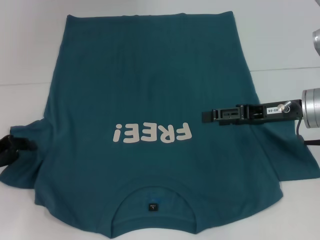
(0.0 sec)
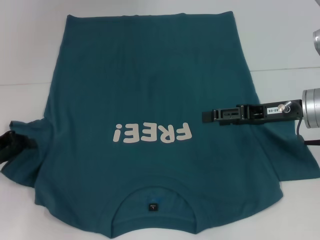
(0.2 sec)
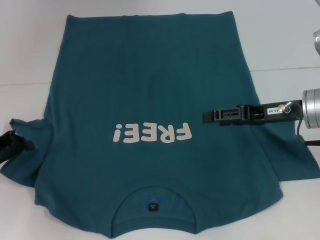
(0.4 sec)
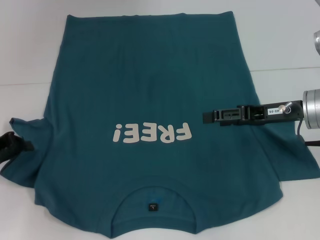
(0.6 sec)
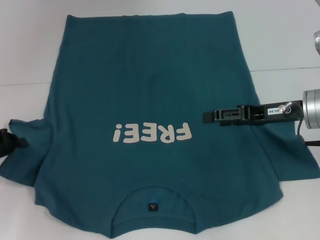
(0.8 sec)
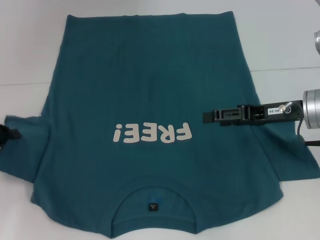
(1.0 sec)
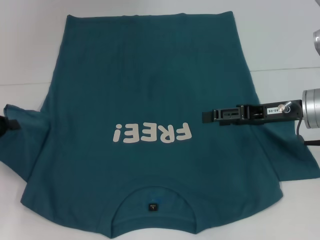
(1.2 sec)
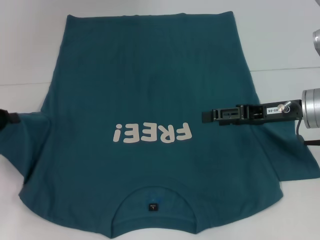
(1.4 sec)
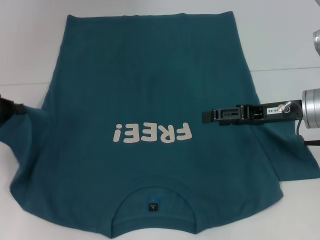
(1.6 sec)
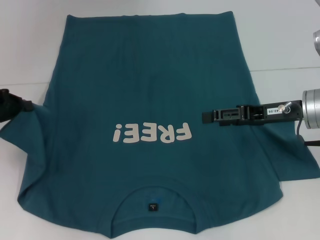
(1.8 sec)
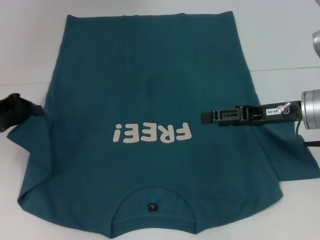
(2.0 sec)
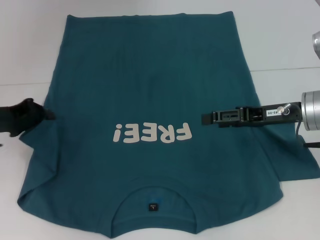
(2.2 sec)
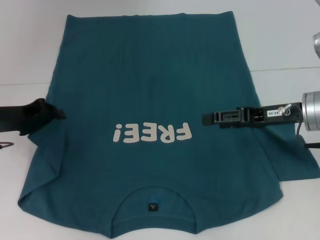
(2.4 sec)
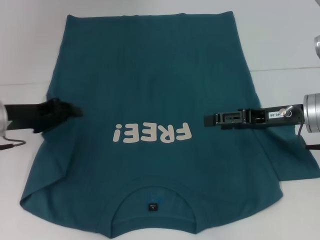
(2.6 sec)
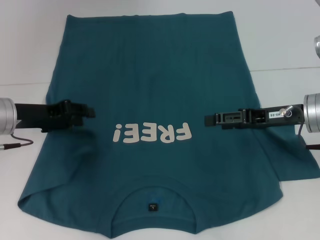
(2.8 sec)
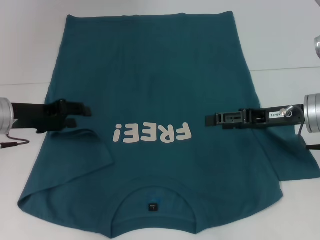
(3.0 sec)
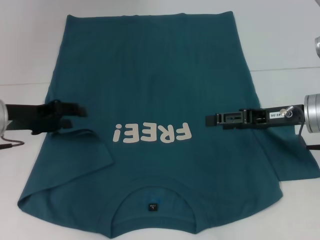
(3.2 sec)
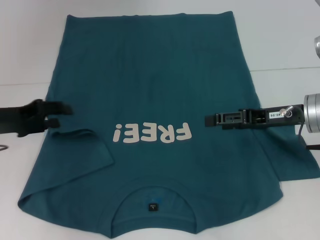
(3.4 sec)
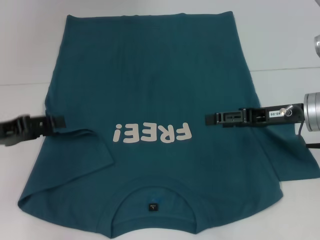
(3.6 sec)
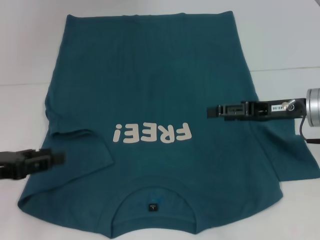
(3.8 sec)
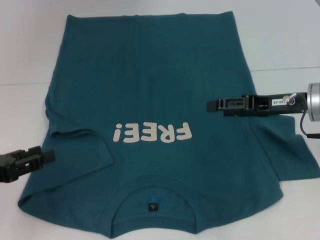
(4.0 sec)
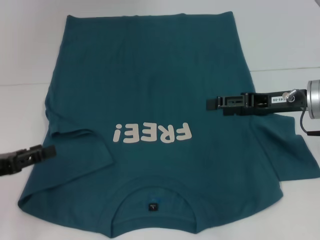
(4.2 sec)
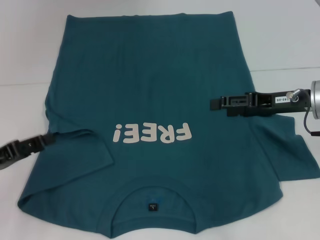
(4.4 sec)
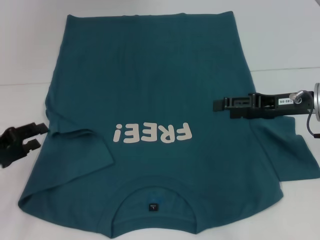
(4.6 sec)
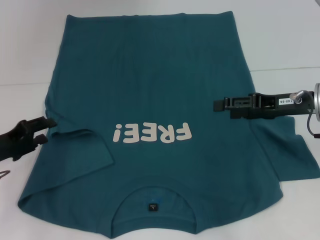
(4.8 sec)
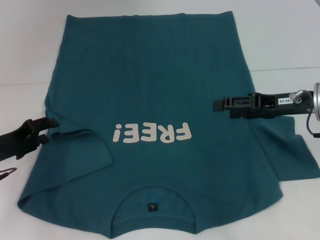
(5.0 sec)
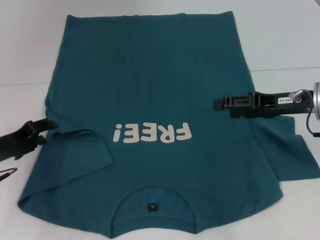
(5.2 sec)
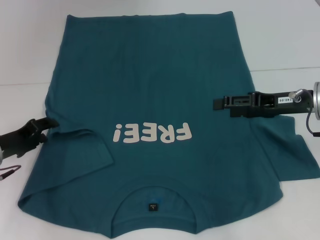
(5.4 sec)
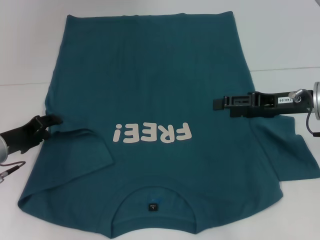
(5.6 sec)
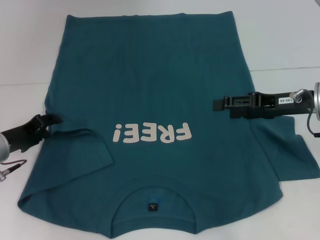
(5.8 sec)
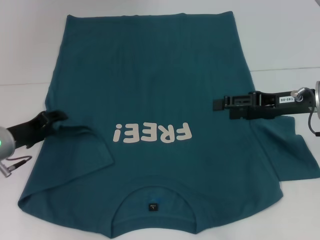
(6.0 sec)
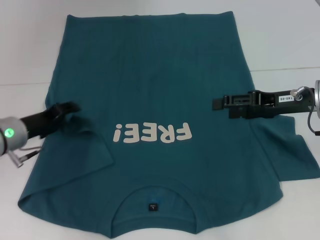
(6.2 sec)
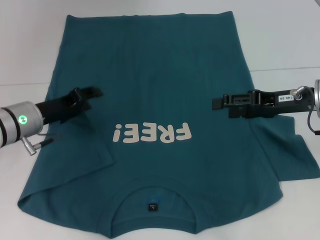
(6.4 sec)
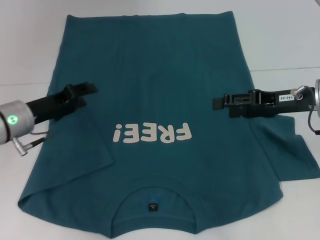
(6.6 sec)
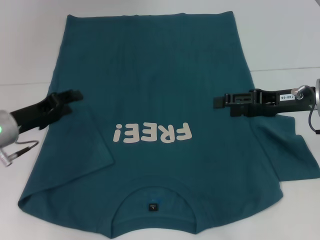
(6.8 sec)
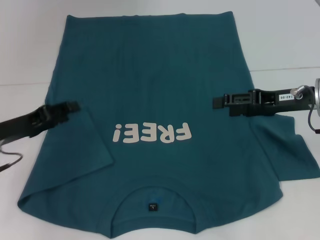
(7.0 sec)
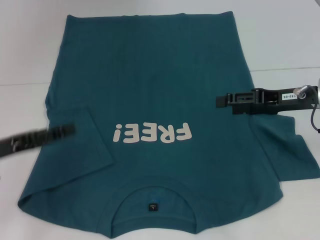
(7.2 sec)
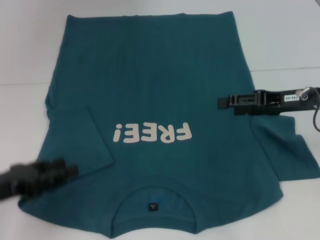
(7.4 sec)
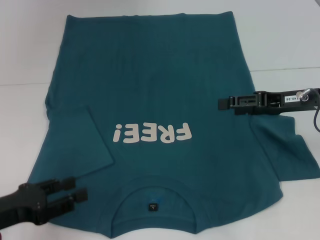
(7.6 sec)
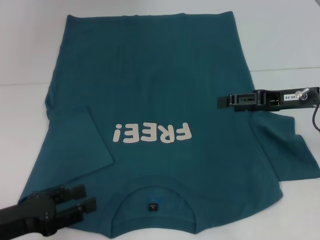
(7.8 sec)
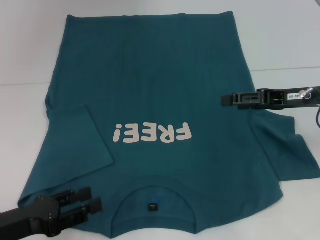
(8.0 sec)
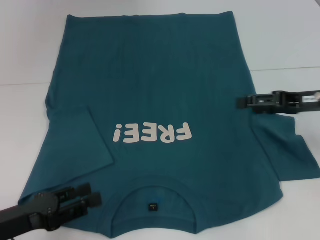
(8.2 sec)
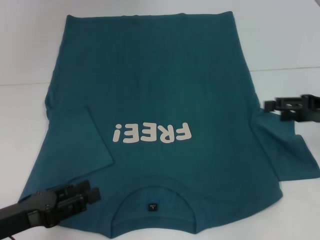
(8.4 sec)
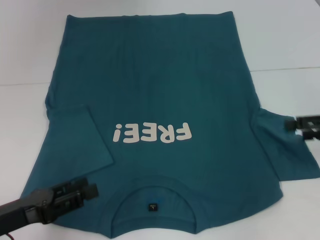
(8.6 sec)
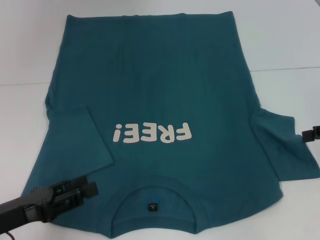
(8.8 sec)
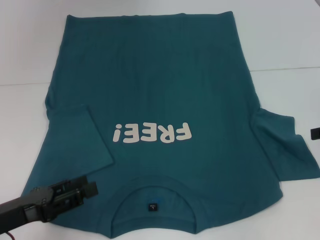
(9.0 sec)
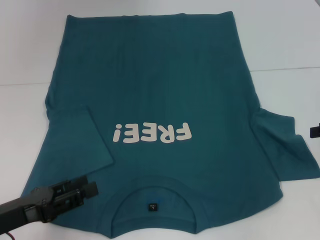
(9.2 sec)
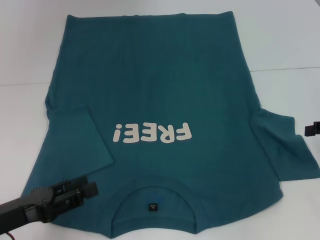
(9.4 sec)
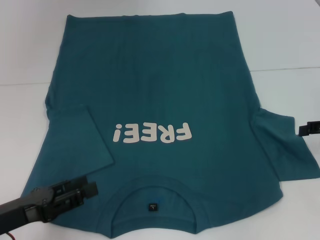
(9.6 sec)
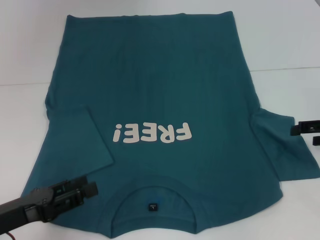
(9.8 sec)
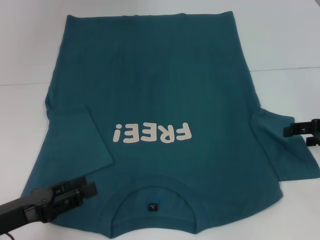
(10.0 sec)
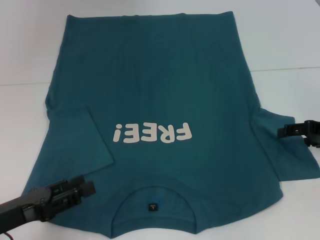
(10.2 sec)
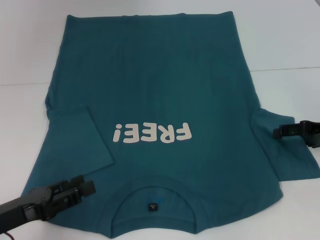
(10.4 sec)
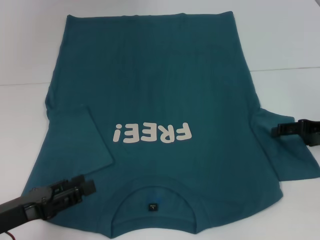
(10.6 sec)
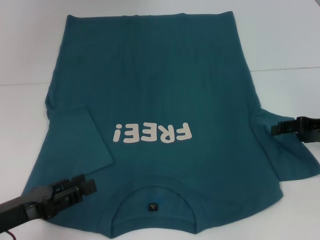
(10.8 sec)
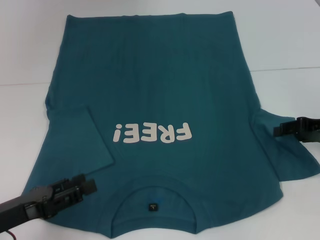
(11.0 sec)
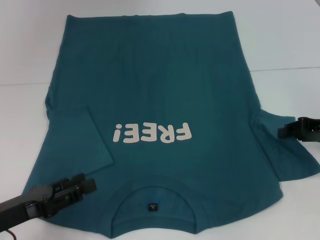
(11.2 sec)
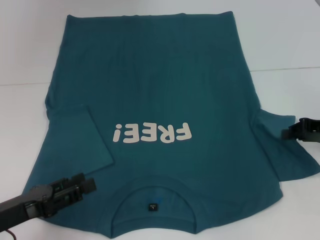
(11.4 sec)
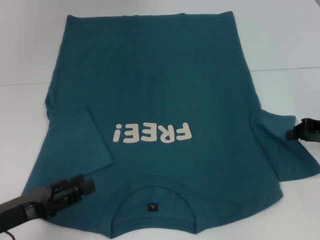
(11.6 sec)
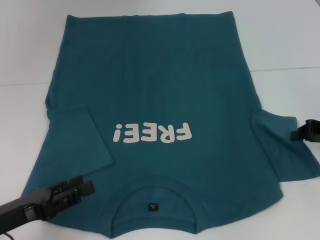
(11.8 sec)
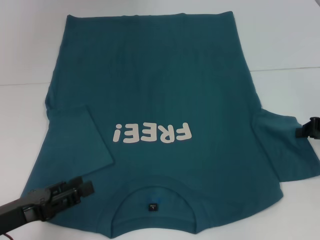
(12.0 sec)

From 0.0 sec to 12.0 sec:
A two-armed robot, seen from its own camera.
Step, from 0.0 sec to 6.8 sec: Fold the bottom left sleeve with your left hand.
From 0.0 sec to 1.6 sec: The left gripper moves upward, about 5 cm, and closes up.
From 1.6 sec to 3.0 sec: The left gripper travels to the right by roughly 10 cm, and opens up.
From 3.0 sec to 4.4 sec: The left gripper goes about 10 cm backward and to the left.
From 4.4 sec to 6.0 sec: The left gripper travels forward and to the right by approximately 10 cm.
From 6.0 sec to 7.6 sec: The left gripper travels backward by roughly 15 cm.
From 7.6 sec to 9.0 sec: The right gripper moves to the right, about 10 cm.
From 9.0 sec to 10.4 sec: The right gripper heads downward, covering approximately 5 cm.
From 10.4 sec to 12.0 sec: The right gripper closes up.

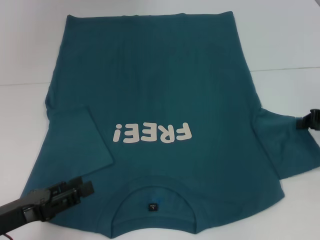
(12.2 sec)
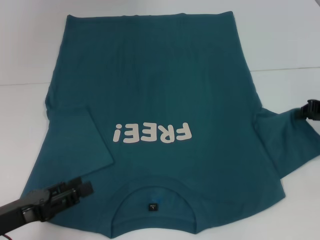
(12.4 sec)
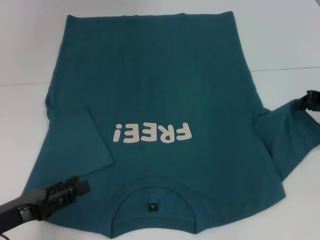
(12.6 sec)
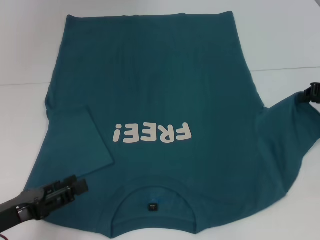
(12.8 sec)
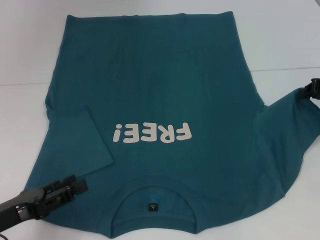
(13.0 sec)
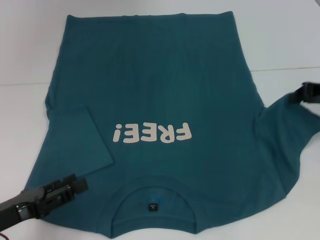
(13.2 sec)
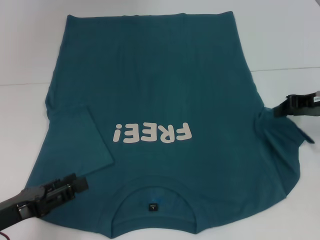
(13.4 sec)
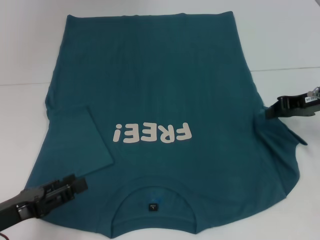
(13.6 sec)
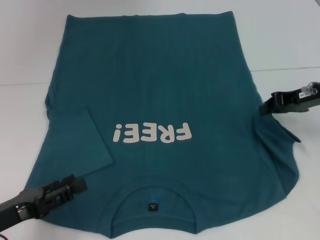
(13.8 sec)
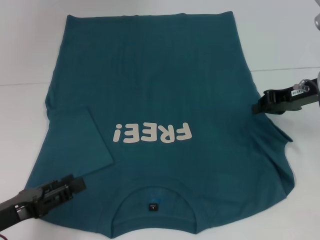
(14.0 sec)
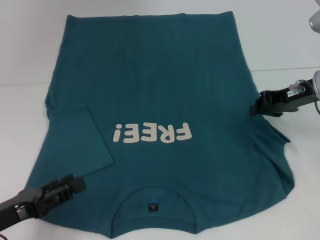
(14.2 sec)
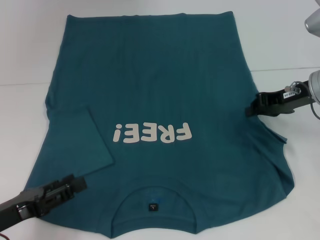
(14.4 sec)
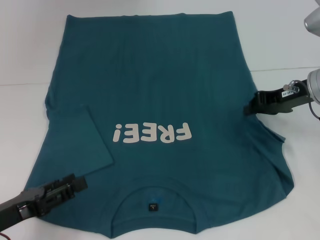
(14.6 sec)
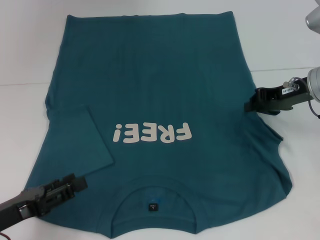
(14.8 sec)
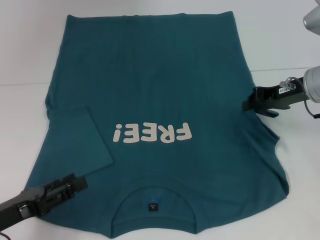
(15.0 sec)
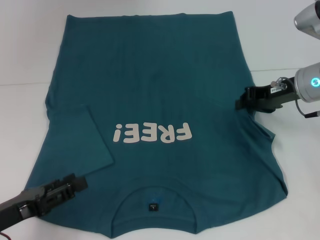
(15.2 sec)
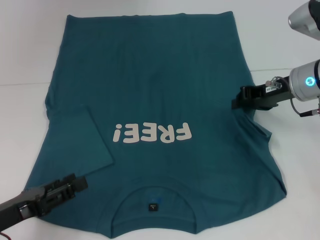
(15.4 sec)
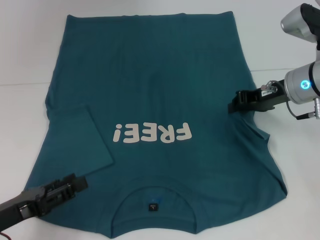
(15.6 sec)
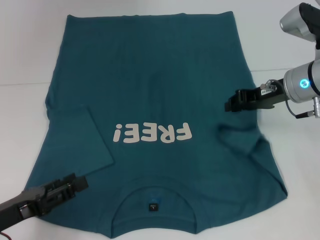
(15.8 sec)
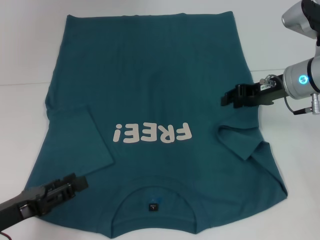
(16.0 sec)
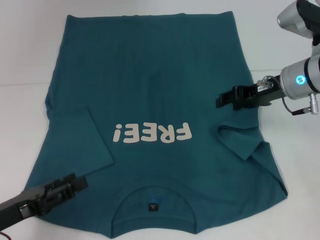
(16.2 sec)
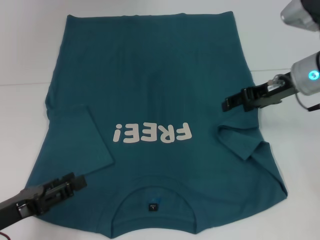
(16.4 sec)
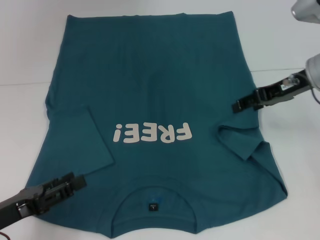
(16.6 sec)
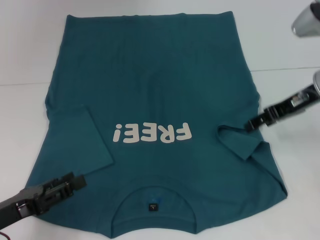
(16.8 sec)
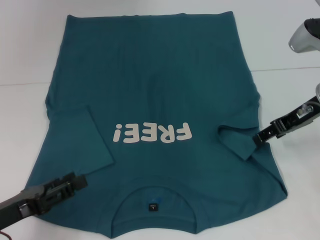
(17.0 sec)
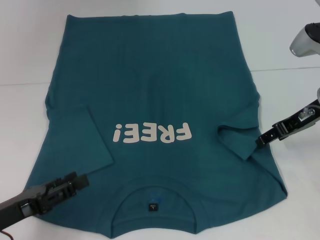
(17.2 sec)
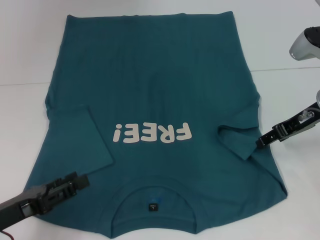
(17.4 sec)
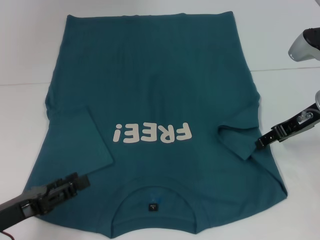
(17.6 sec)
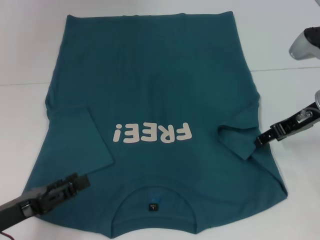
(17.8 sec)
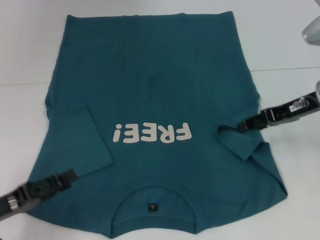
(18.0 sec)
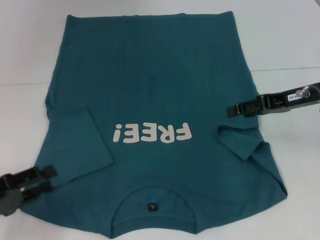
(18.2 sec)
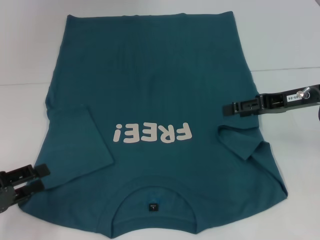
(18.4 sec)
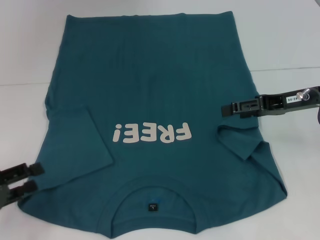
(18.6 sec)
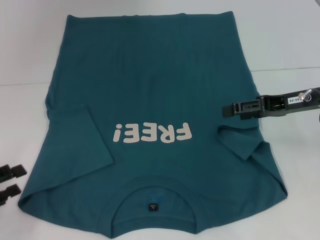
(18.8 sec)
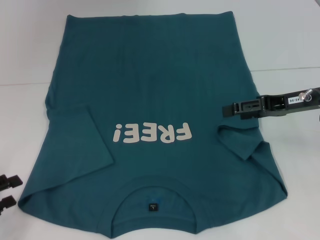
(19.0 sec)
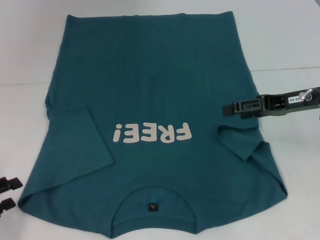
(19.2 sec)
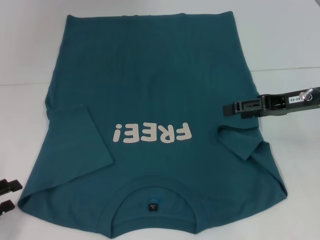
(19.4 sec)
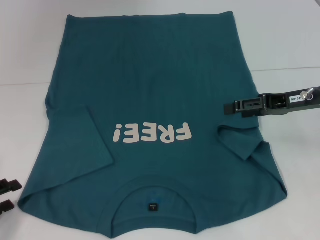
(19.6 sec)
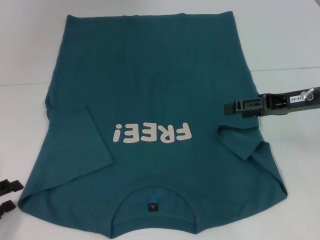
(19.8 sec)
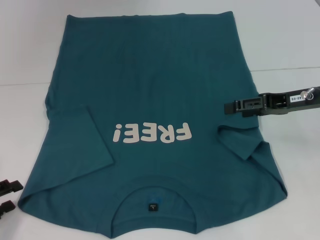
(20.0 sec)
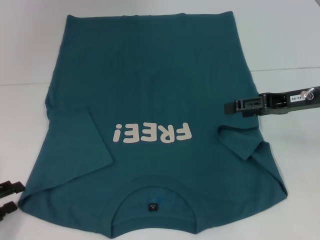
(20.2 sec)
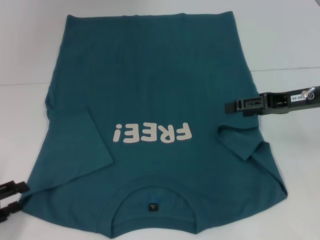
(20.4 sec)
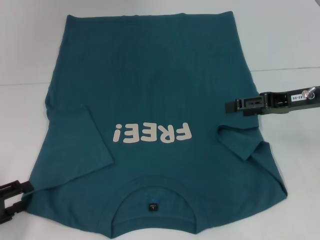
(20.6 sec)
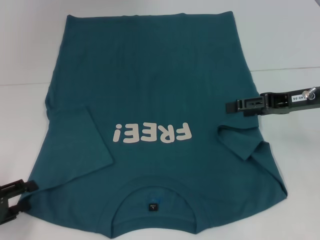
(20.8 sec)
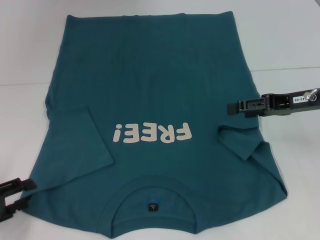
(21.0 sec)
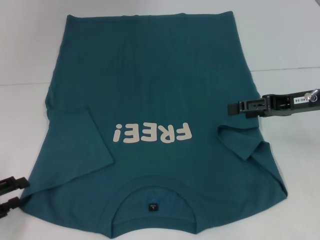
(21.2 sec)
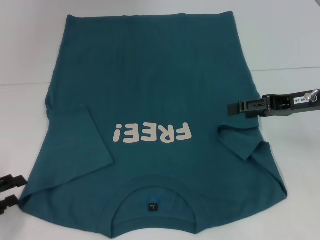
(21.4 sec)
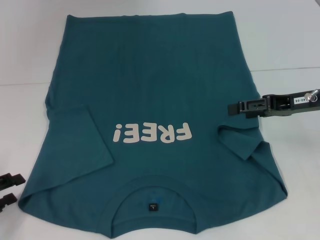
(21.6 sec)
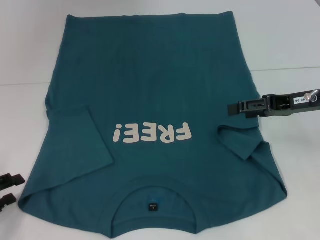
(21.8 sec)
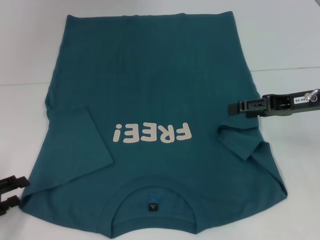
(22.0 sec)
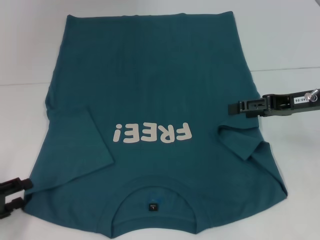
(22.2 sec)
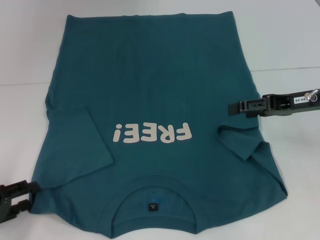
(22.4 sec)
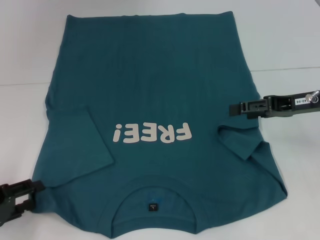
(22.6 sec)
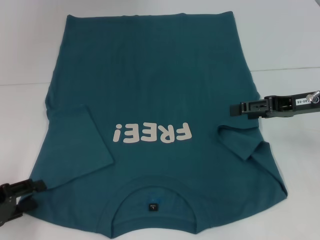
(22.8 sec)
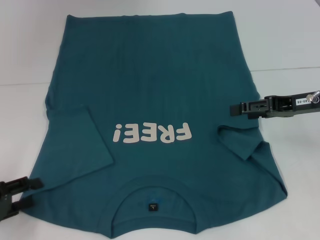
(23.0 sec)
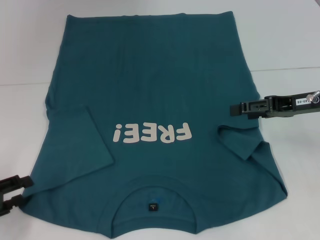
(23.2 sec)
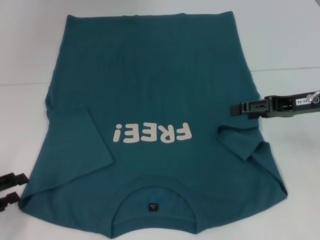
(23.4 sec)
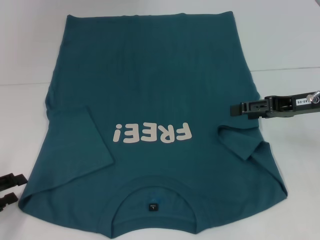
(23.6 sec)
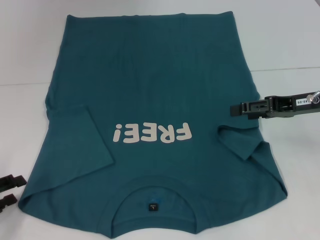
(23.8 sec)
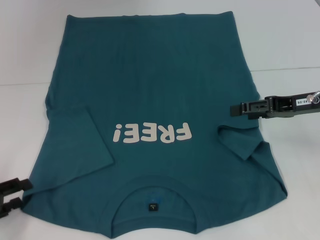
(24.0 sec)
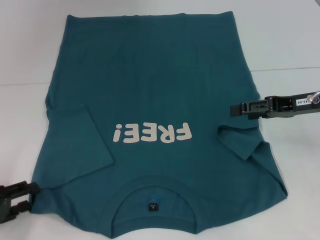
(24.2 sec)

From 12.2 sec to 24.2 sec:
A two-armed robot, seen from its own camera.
Step, from 12.2 sec to 16.8 sec: Fold the bottom right sleeve to the right.
From 12.2 sec to 13.8 sec: The right gripper shifts some 5 cm to the left.
From 13.8 sec to 15.2 sec: The grippers stay close to where they were, moving slightly.
From 15.2 sec to 16.6 sec: The right gripper opens.
From 19.8 sec to 24.2 sec: The grippers move only a little.
